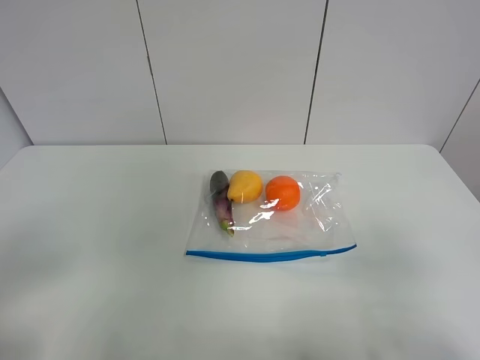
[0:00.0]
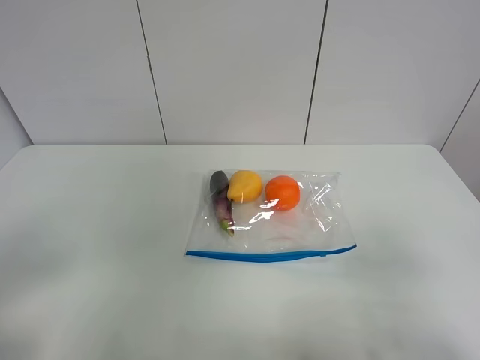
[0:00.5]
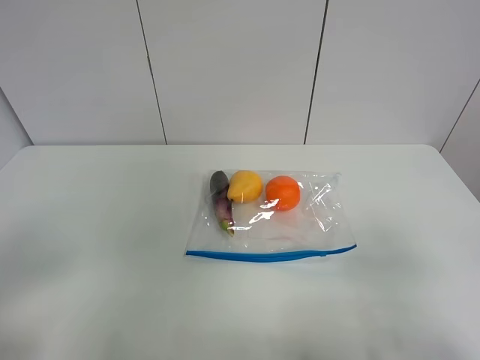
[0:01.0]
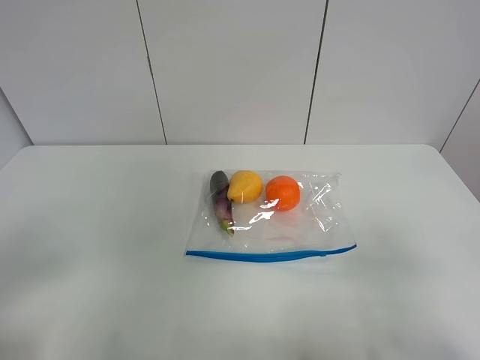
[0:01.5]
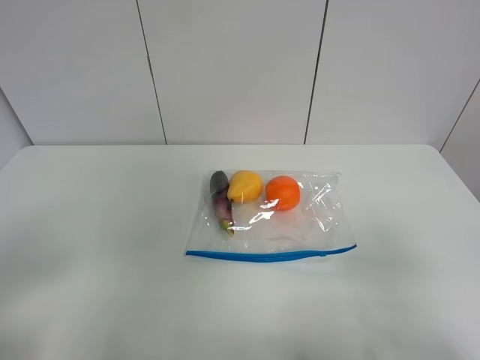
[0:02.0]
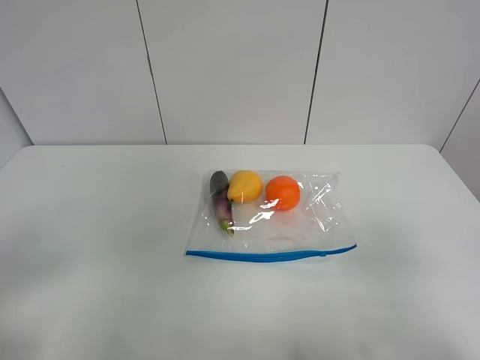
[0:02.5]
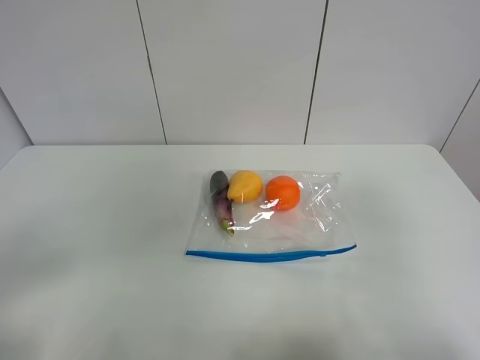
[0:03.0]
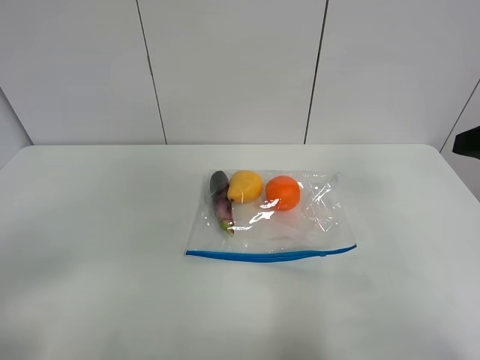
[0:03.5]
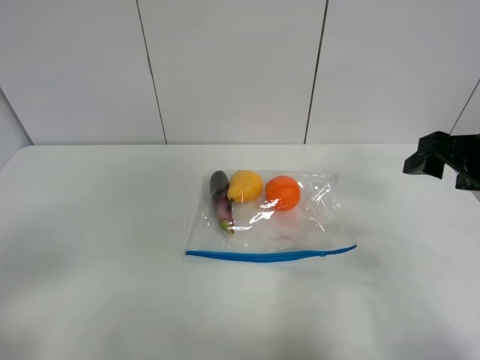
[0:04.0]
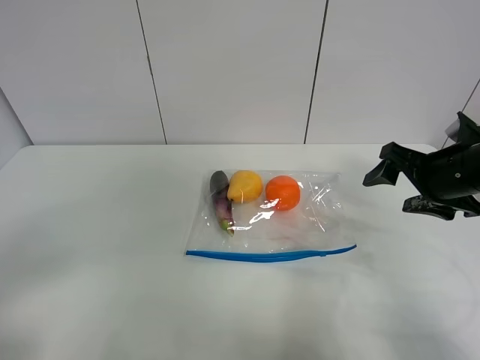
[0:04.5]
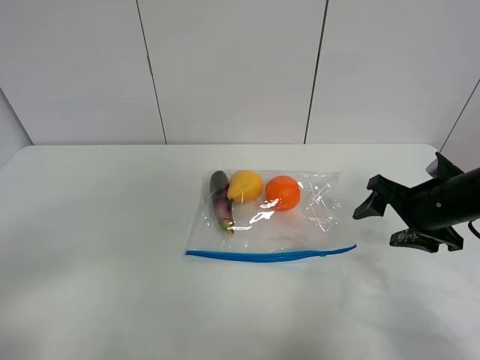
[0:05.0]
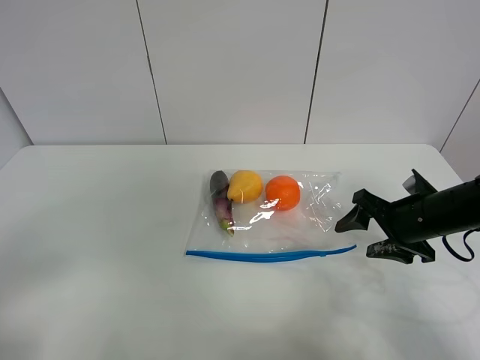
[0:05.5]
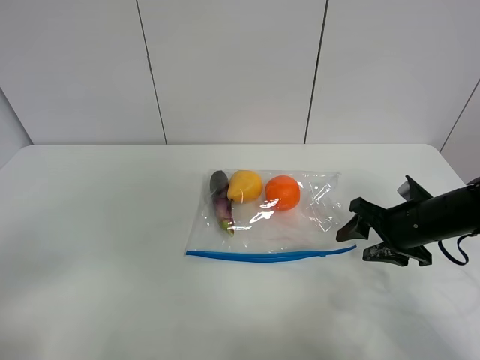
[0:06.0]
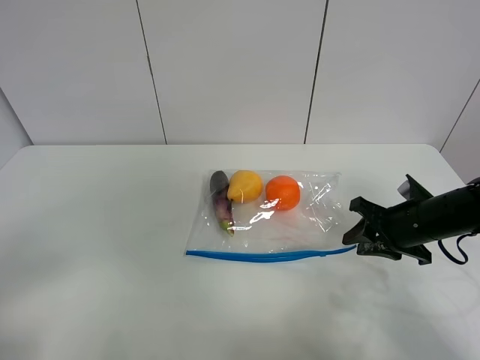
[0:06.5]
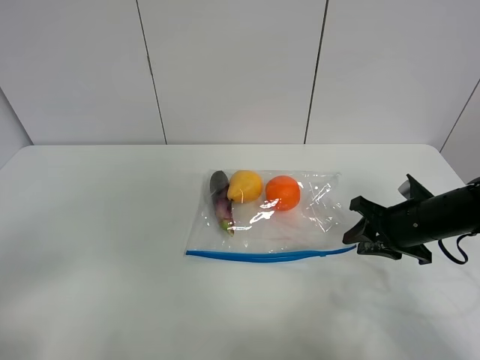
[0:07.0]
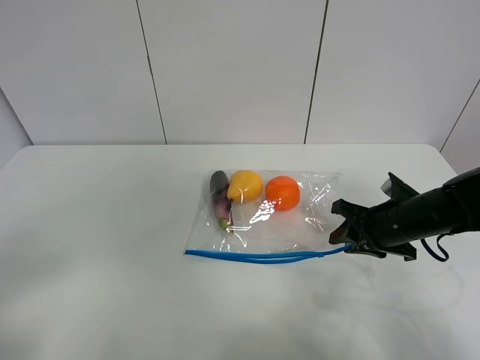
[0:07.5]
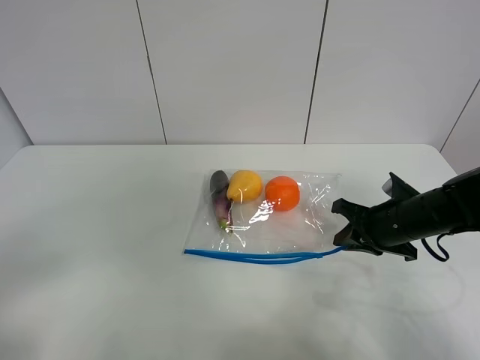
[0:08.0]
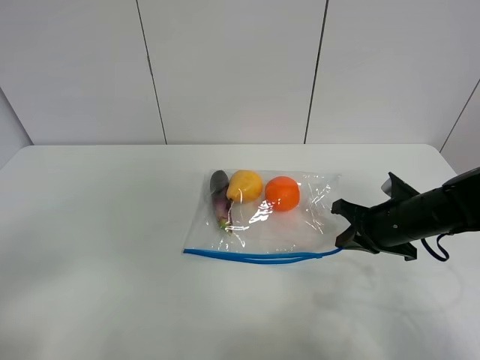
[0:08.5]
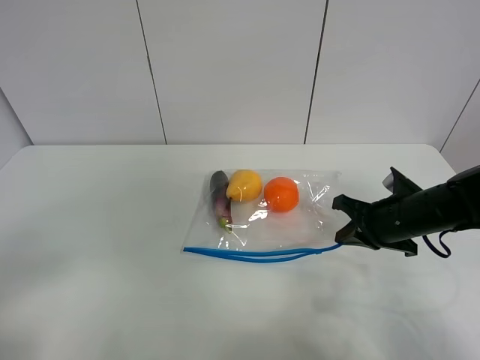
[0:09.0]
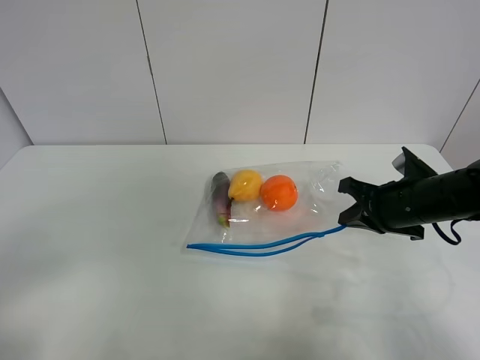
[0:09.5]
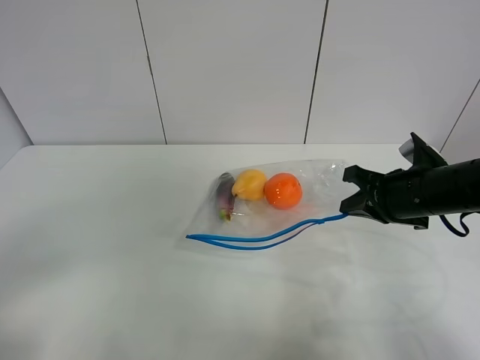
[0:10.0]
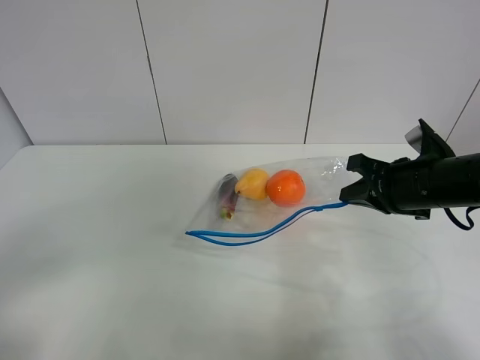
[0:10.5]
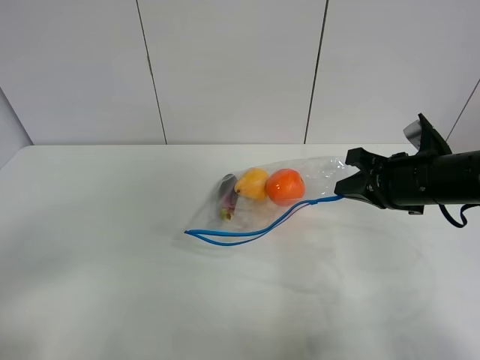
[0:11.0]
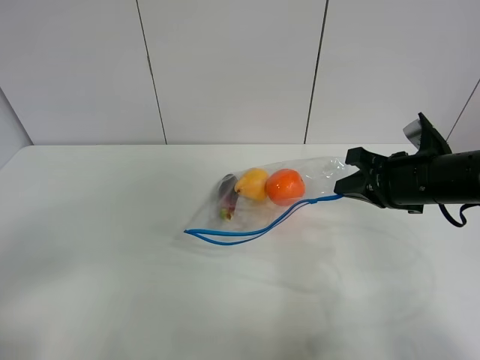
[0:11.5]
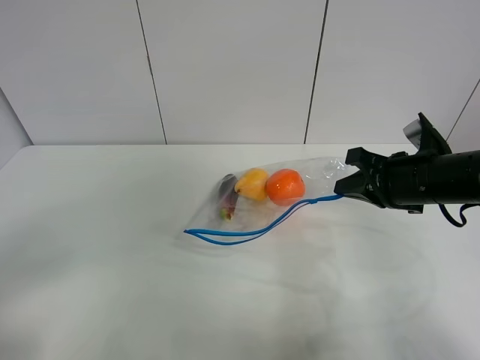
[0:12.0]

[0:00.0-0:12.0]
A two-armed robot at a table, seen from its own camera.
Step, 0:00.0 to 0:08.0: Grasp the fruit bag with right gripper.
Step, 0:08.5 to 0:11.0: Lift the fruit bag with your right gripper.
0:00.0 to 0:02.0: Both grippers stay about where they are.
0:02.0 to 0:04.0: The right gripper is displaced forward by roughly 25 cm.
0:04.0 to 0:06.0: The right gripper is displaced downward by some 15 cm.
0:06.0 to 0:08.0: The right gripper closes up.
0:08.0 to 0:10.0: The right gripper moves upward, some 5 cm.
0:10.0 to 0:12.0: The grippers move only a little.

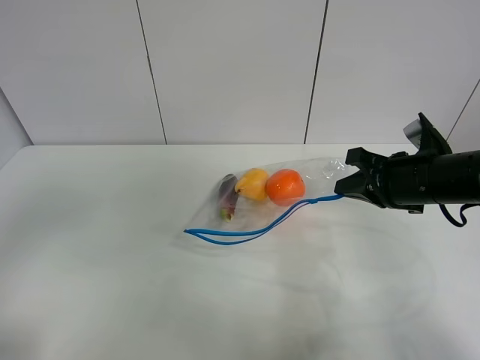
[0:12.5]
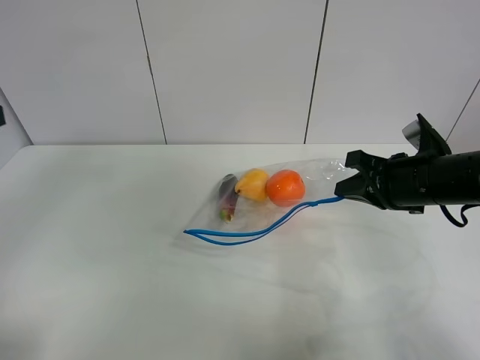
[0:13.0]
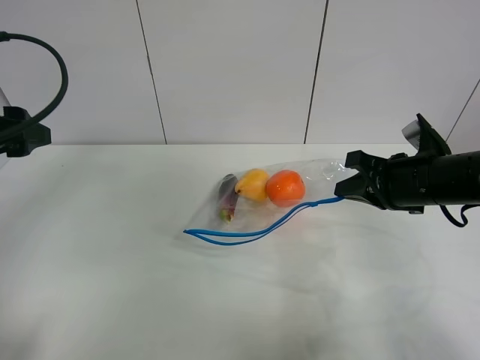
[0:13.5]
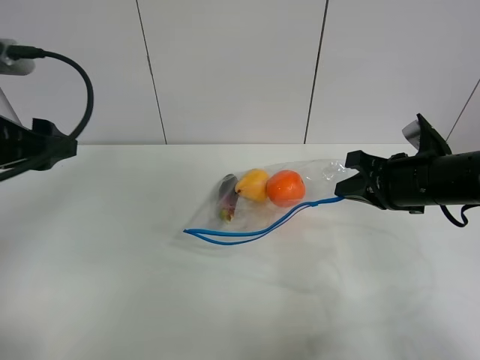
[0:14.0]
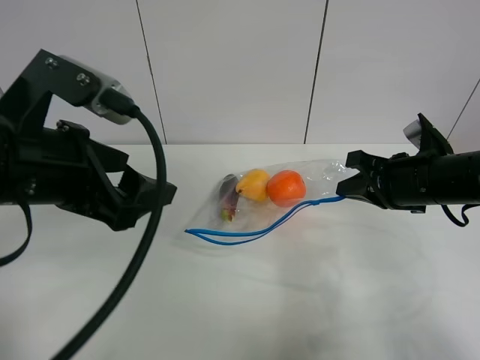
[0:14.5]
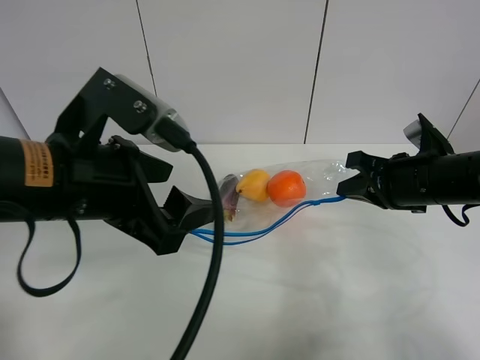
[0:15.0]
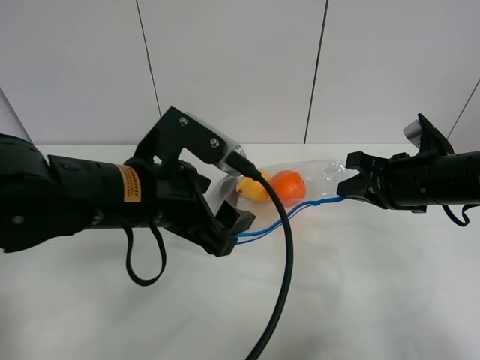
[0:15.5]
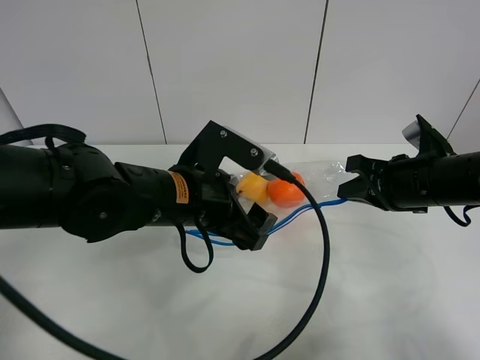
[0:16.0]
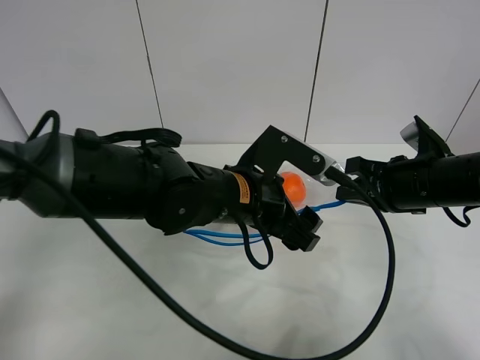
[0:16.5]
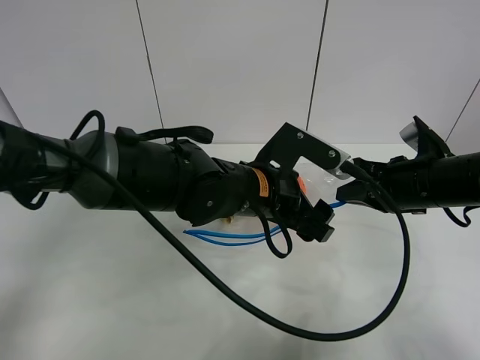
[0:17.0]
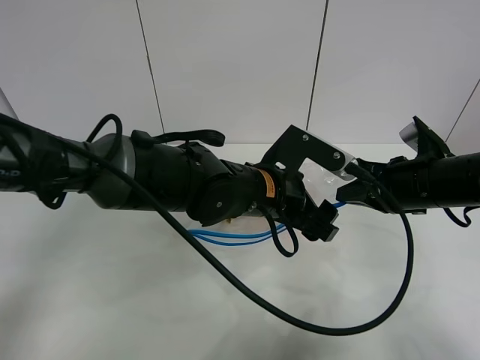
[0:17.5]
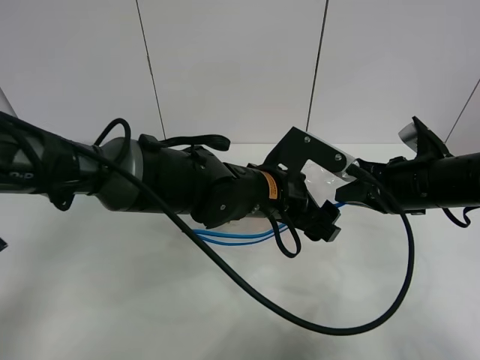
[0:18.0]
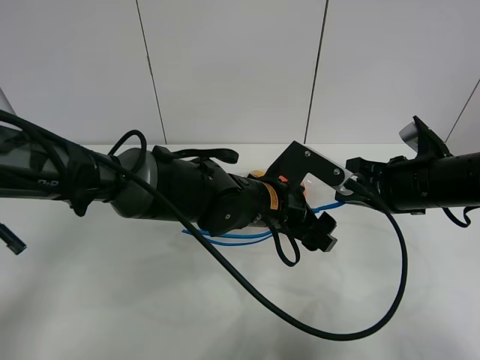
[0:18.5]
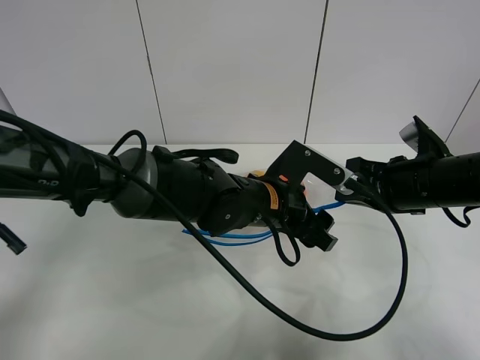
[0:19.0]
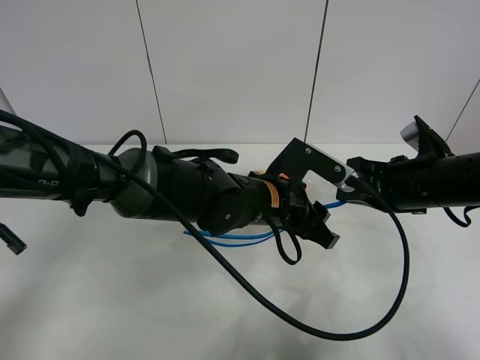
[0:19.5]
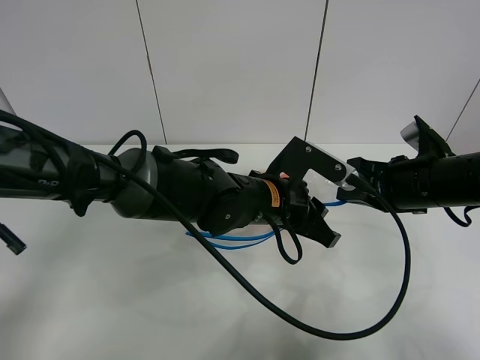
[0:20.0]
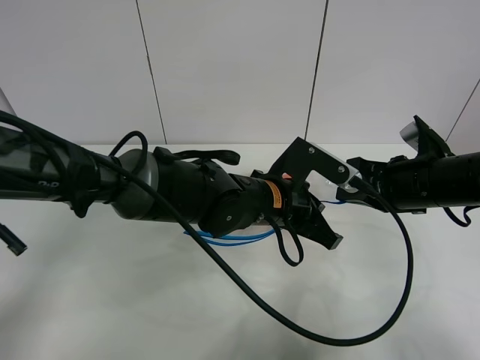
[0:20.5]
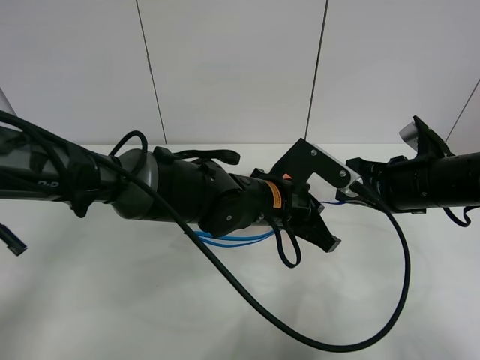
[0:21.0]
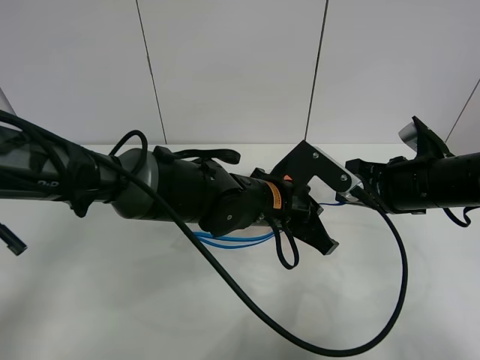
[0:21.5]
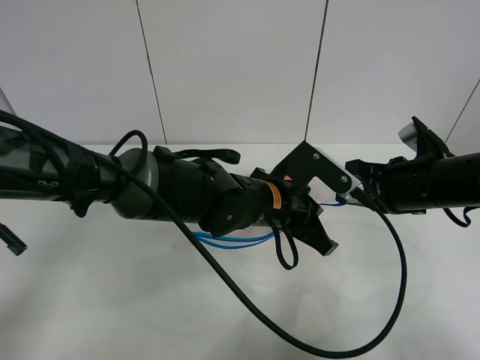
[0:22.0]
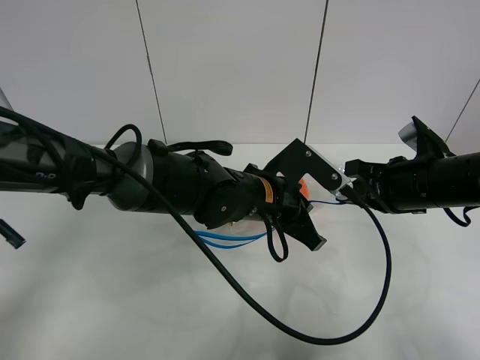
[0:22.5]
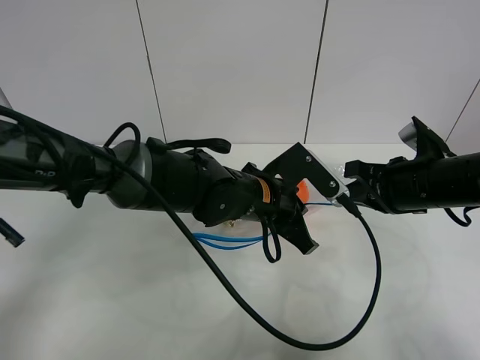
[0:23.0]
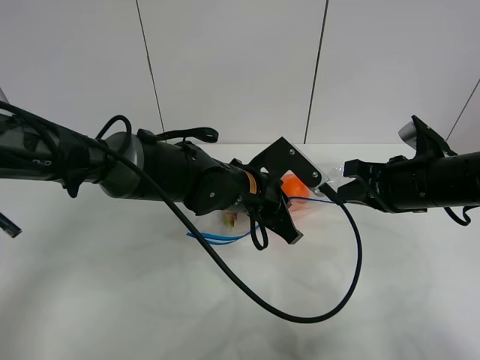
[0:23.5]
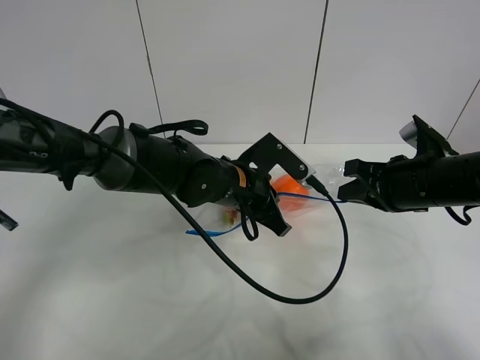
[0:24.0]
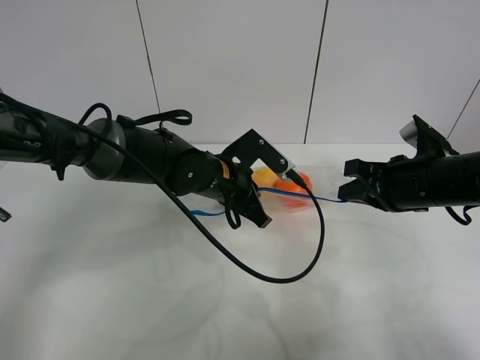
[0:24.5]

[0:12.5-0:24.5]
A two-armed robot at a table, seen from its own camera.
0:12.5 to 0:14.5: The left gripper shifts approximately 20 cm to the right and forward.
0:14.5 to 0:16.5: The left gripper heads to the right, downward and forward, covering some 20 cm.
0:16.5 to 0:18.5: The left gripper moves approximately 5 cm.
0:18.5 to 0:20.5: The left gripper closes.
0:20.5 to 0:22.5: There are only small adjustments of the grippers.
0:22.5 to 0:24.5: The left gripper goes roughly 10 cm to the left and forward.

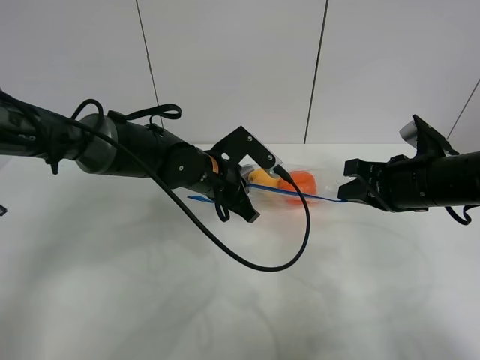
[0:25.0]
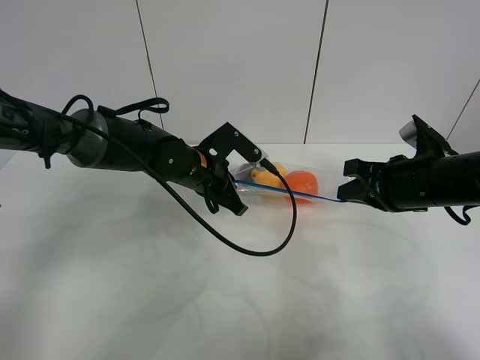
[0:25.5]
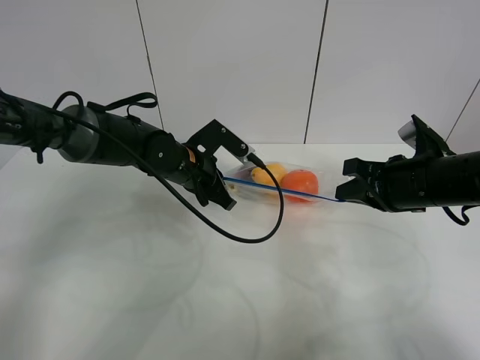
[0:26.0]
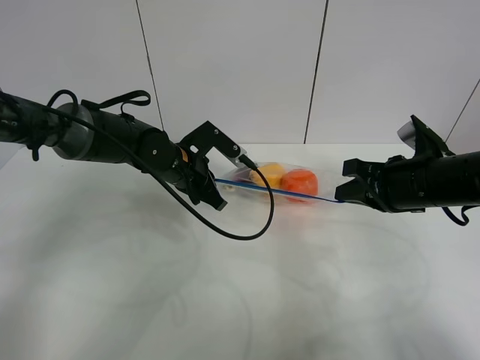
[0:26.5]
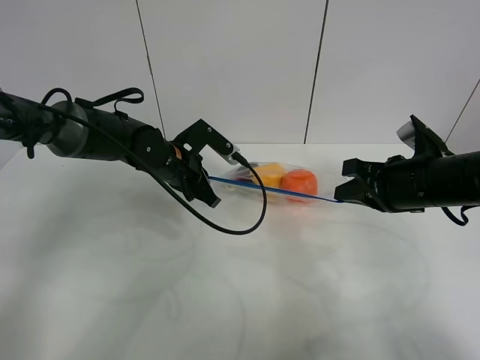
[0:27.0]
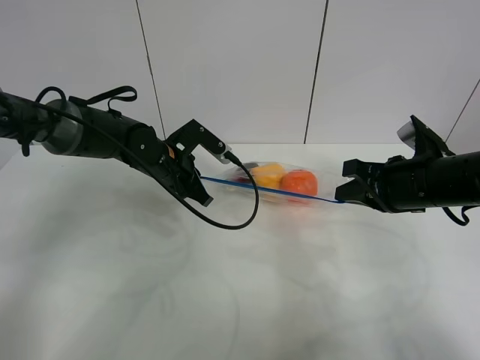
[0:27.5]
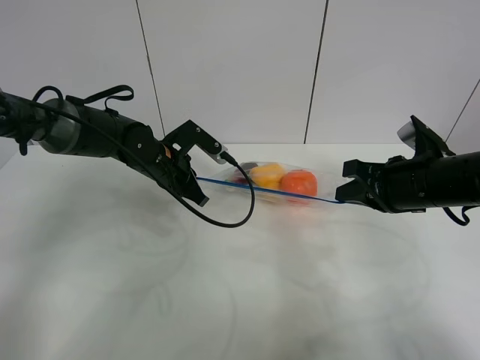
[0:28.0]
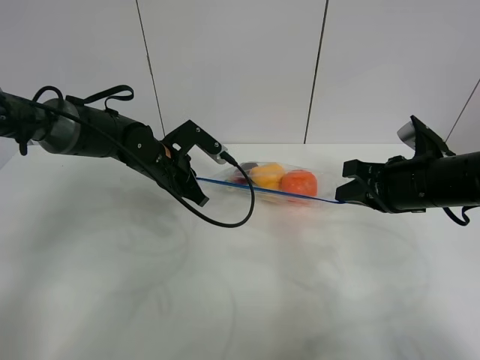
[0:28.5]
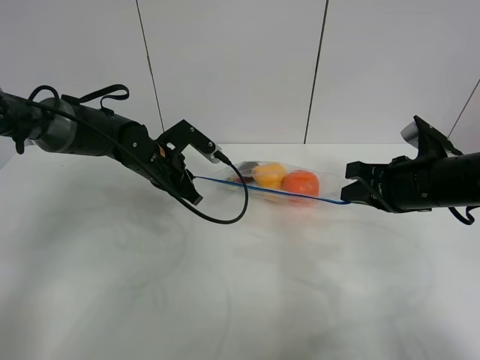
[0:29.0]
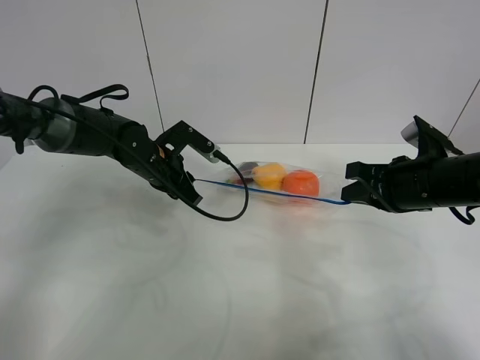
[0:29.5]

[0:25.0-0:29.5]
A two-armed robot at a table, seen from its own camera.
0:25.0 to 0:27.0: The left gripper heads to the left, covering approximately 5 cm.
0:27.0 to 0:29.5: The left gripper opens.
